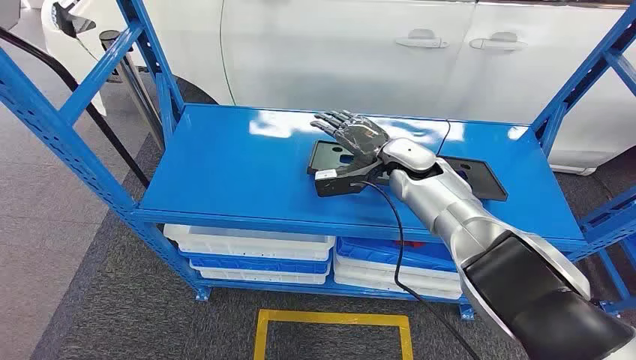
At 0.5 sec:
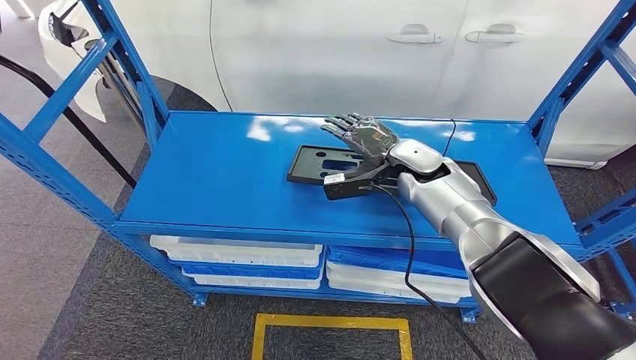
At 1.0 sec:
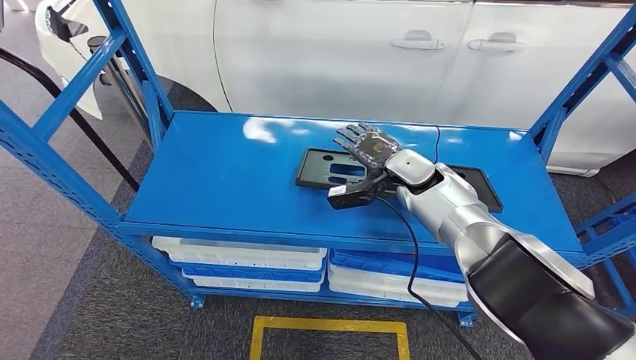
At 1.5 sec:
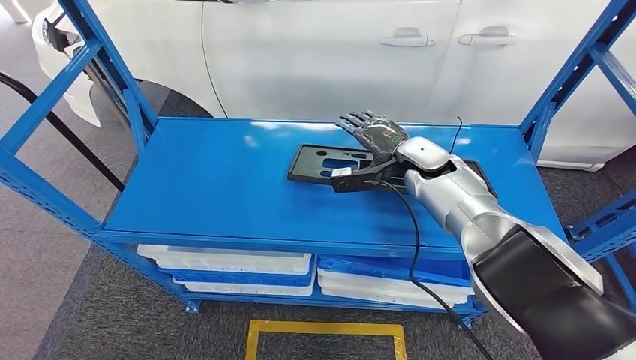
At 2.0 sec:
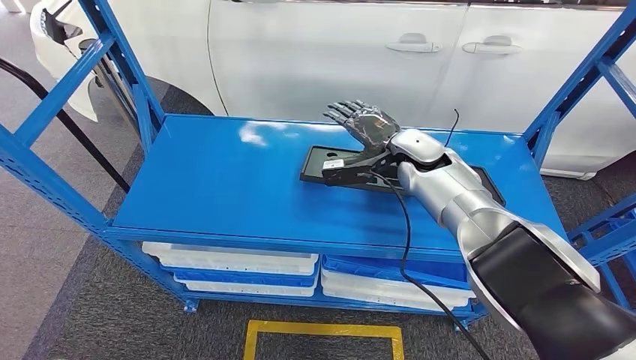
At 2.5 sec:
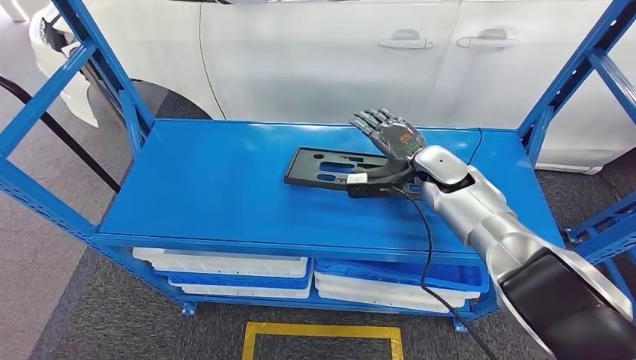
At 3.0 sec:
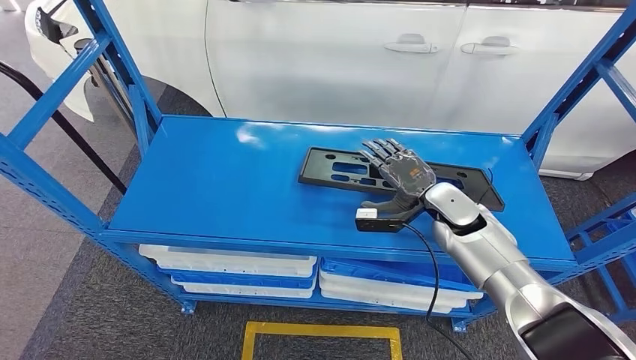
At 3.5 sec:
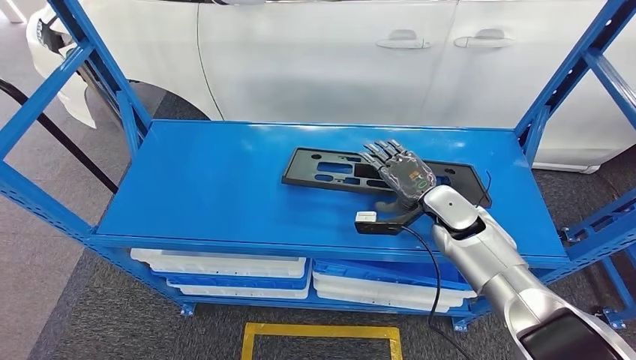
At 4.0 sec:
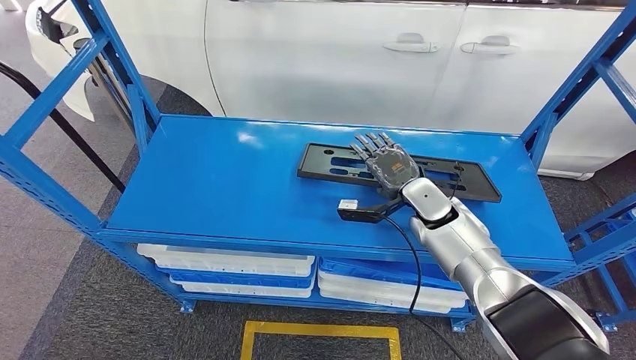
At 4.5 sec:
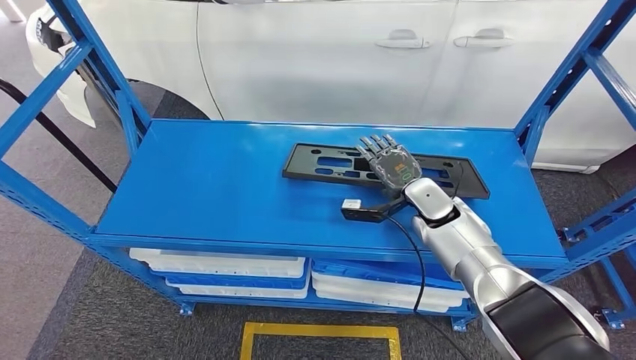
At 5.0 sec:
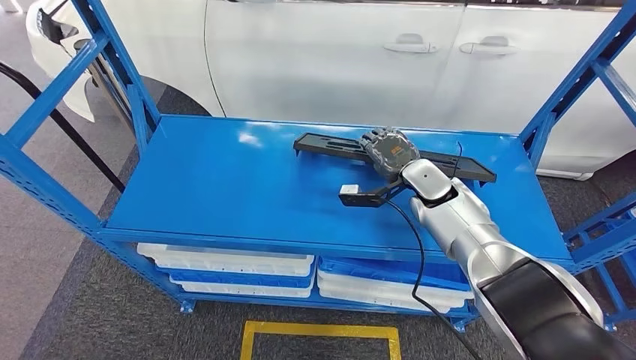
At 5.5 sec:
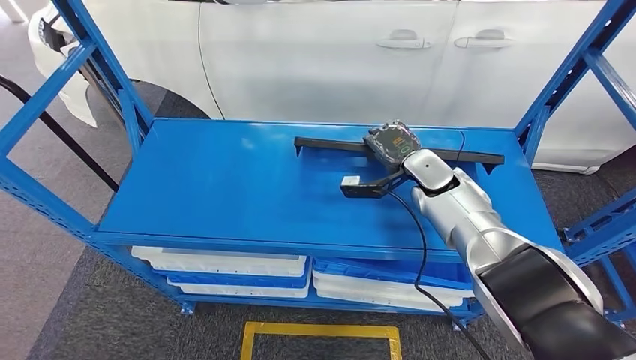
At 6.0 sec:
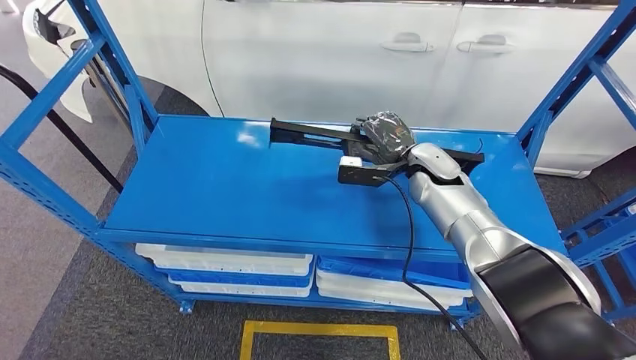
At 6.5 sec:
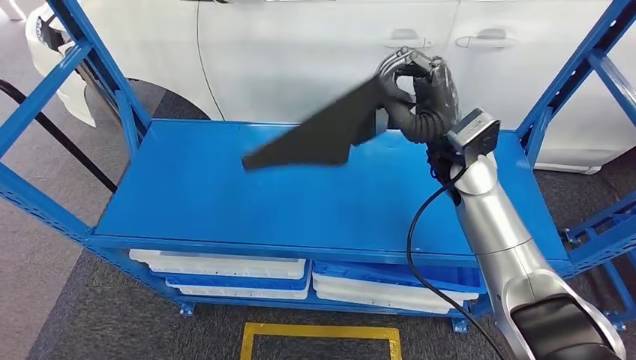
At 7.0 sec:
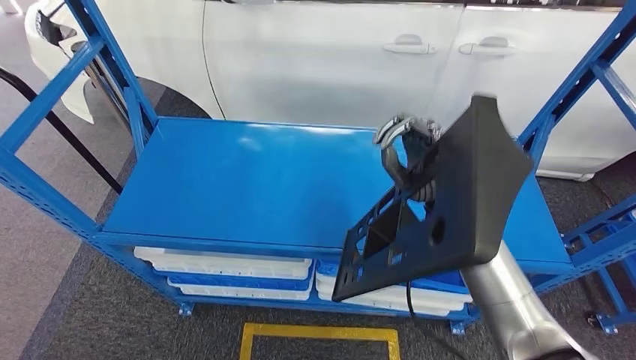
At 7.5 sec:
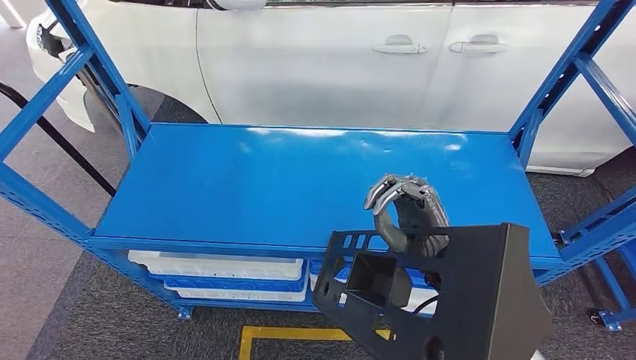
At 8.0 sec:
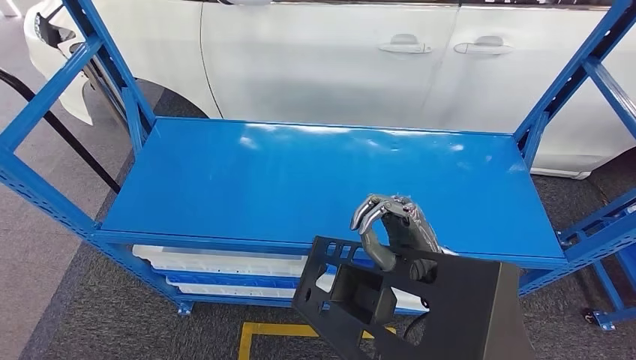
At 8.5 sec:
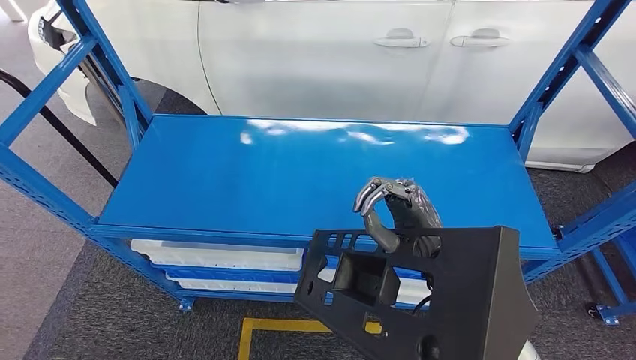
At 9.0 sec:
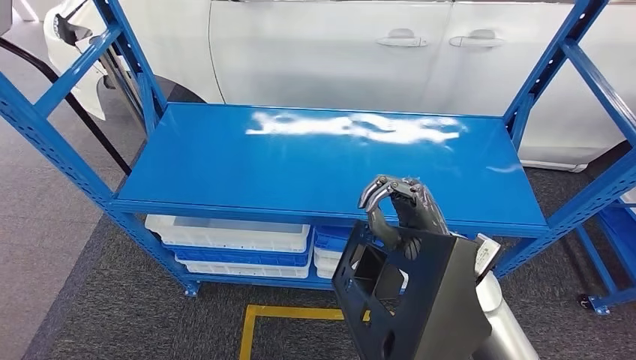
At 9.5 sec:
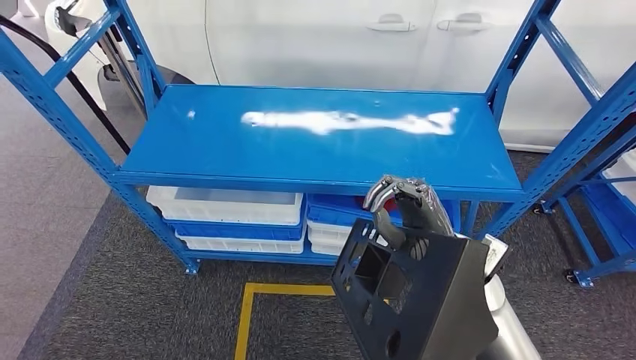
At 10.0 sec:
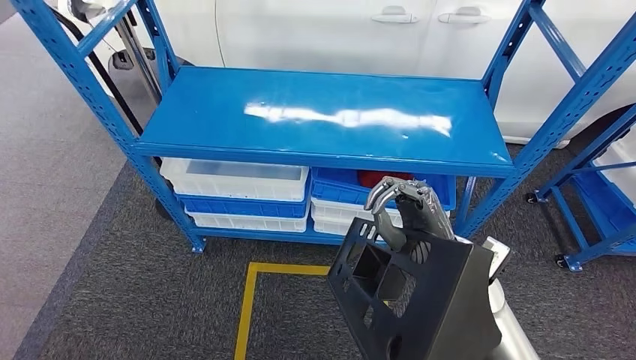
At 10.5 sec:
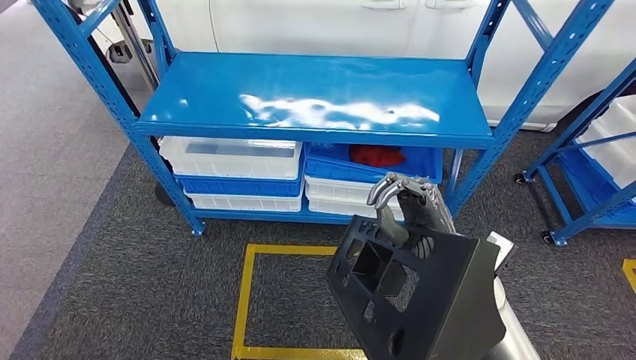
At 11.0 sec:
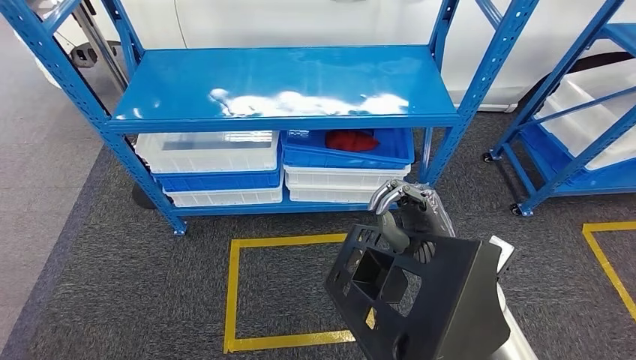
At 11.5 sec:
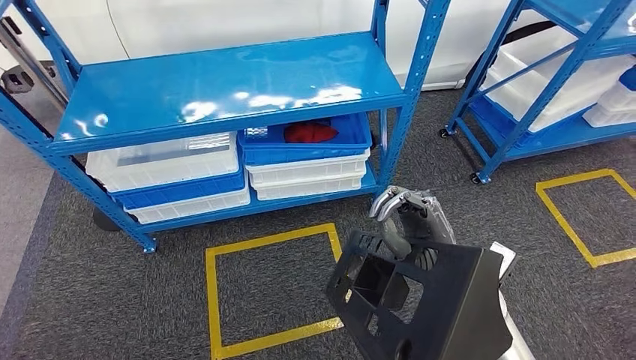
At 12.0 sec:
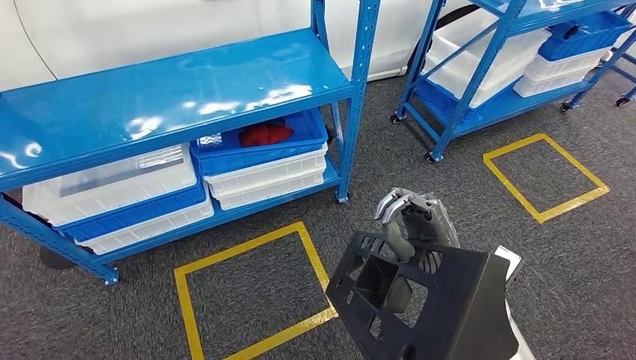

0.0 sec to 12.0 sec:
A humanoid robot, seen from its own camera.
Step, 0.0 sec to 7.5 sec: Pick up the large material from the shelf.
4.0 sec to 6.0 sec: The right hand shifts approximately 5 cm upward.

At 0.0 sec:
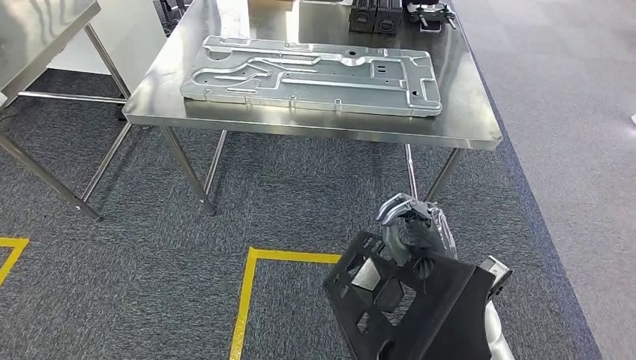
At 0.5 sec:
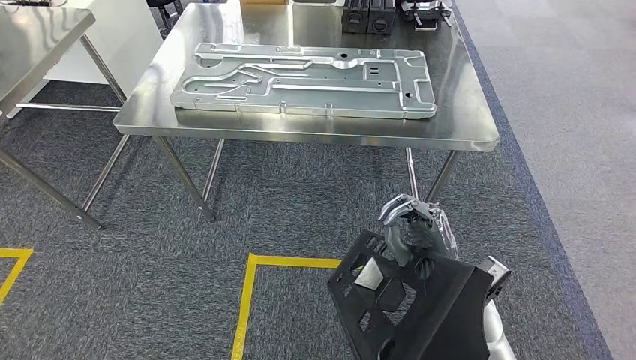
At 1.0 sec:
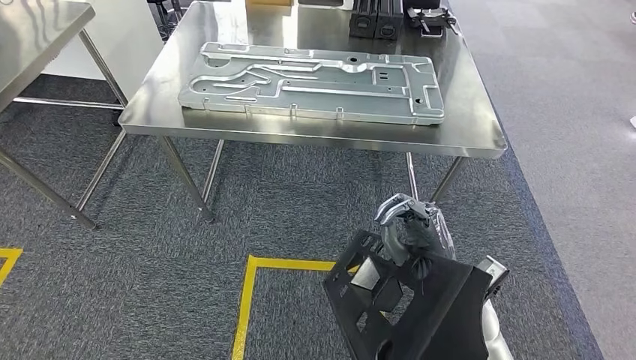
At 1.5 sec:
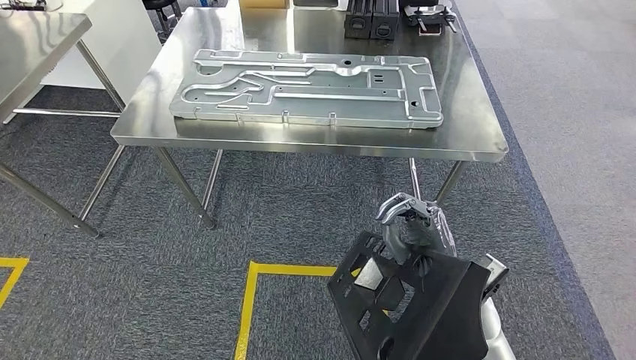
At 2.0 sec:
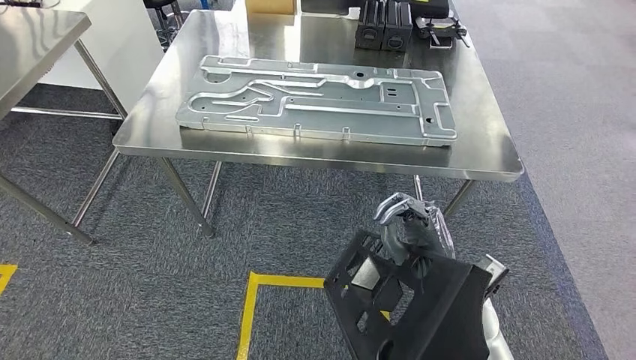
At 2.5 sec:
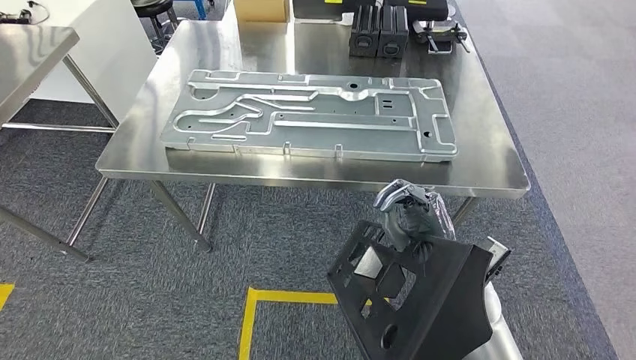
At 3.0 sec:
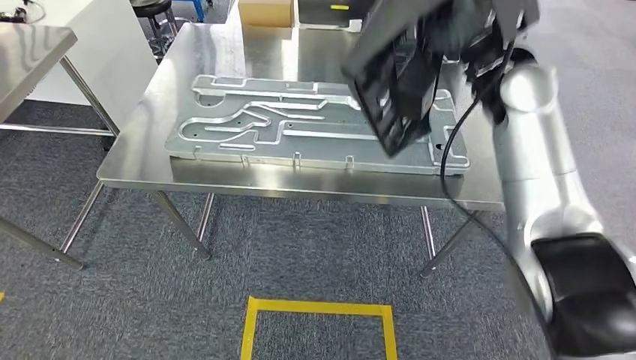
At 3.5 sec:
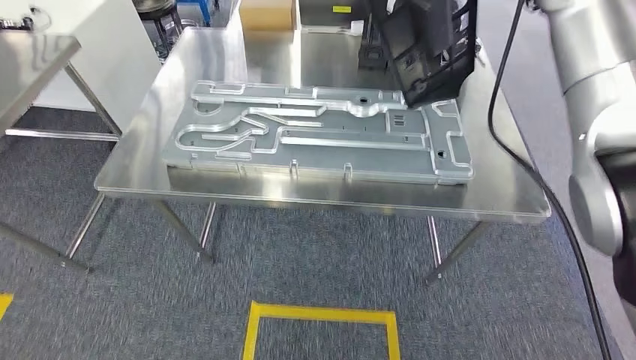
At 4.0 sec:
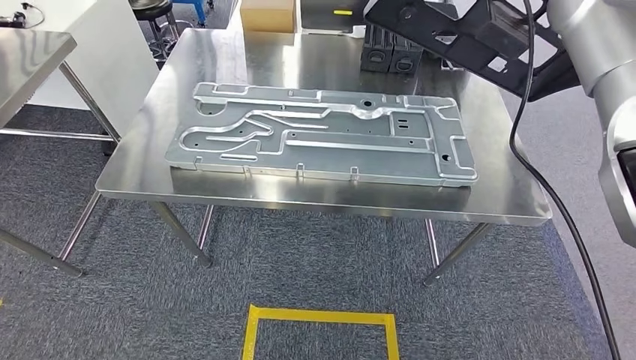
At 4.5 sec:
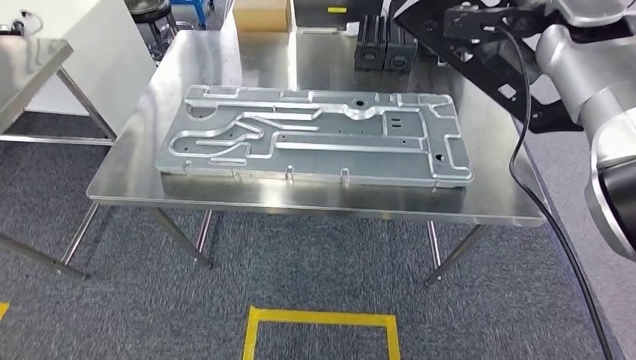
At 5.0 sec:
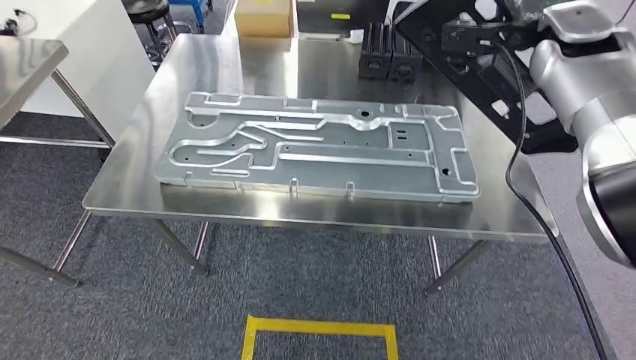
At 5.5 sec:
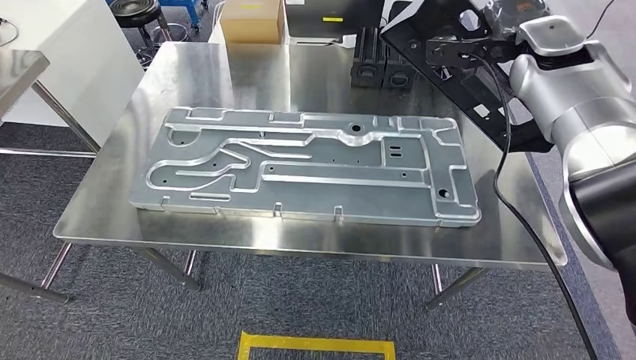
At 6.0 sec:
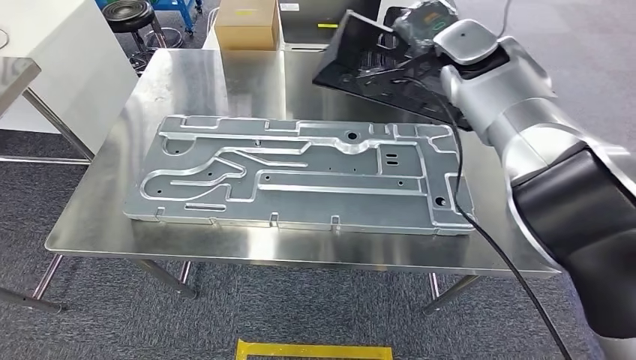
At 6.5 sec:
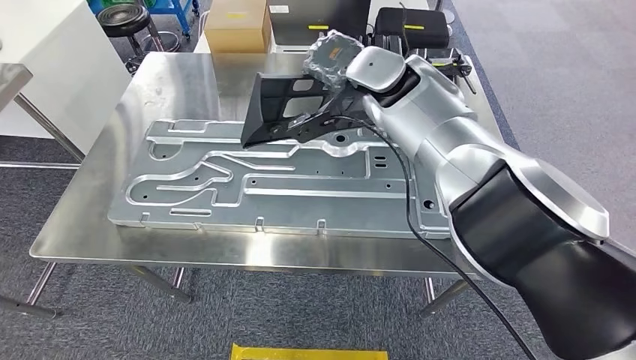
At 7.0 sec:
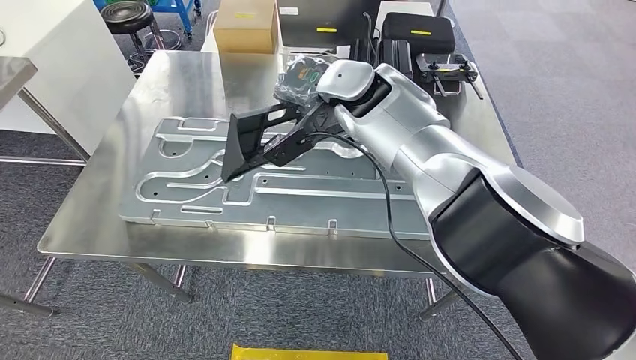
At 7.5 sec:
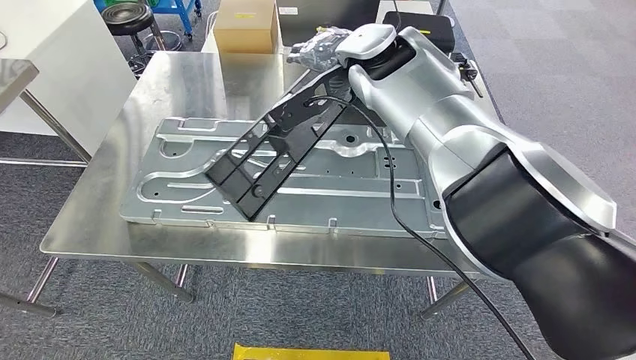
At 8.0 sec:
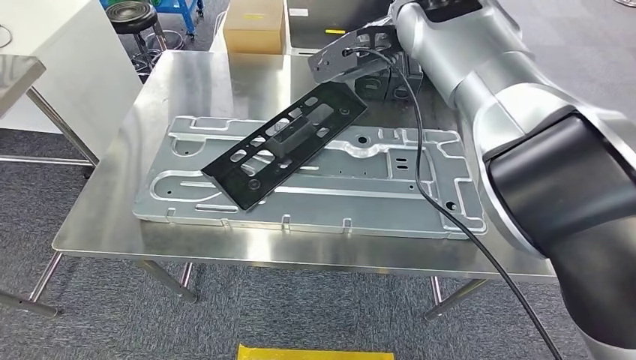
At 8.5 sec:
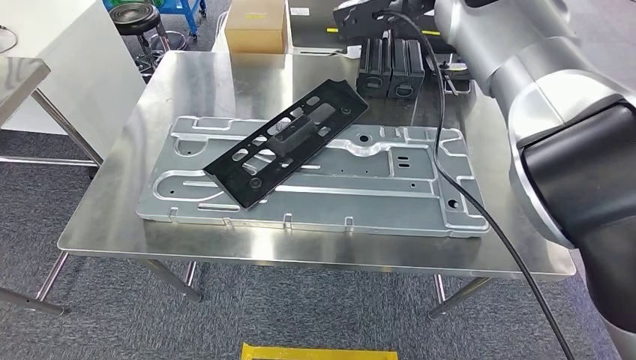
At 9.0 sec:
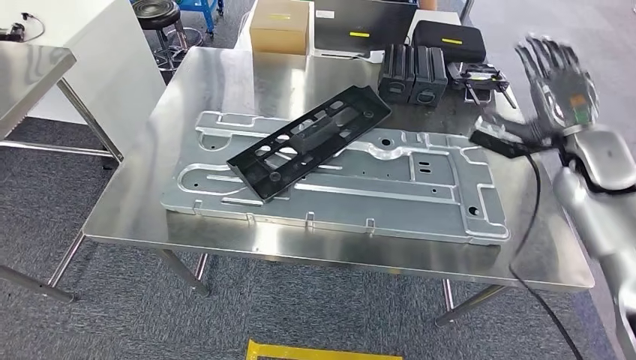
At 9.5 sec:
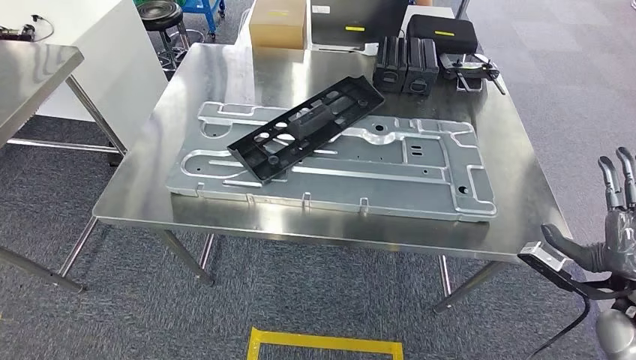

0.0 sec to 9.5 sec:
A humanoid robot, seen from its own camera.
Step, 0.0 sec to 3.5 sec: Move the large material to the workbench.
Step, 4.5 sec to 9.0 sec: Insert the large material into the corresponding slot on the workbench.
